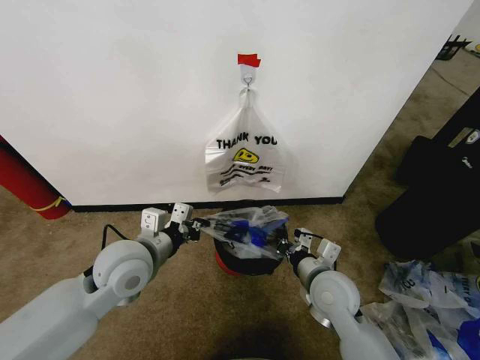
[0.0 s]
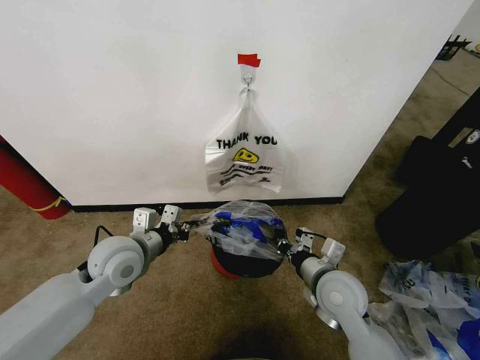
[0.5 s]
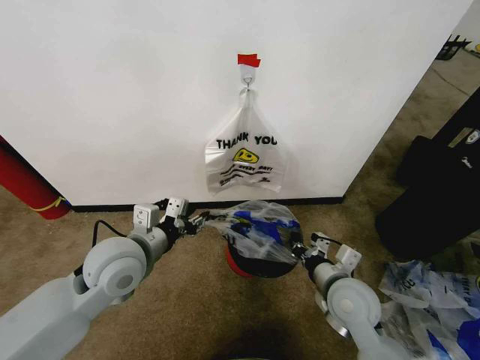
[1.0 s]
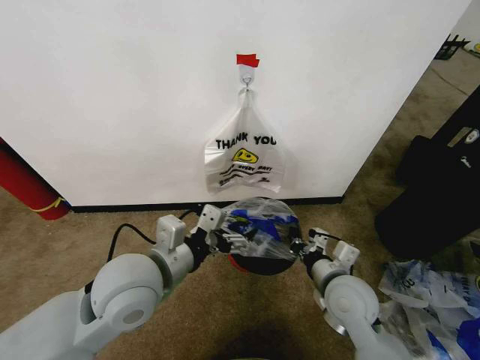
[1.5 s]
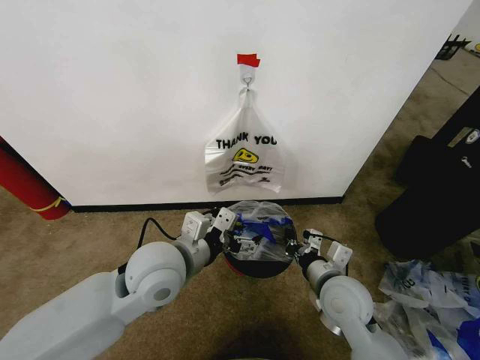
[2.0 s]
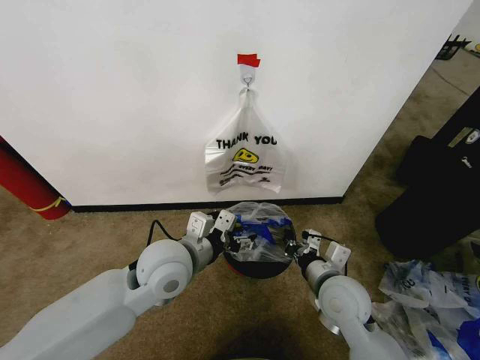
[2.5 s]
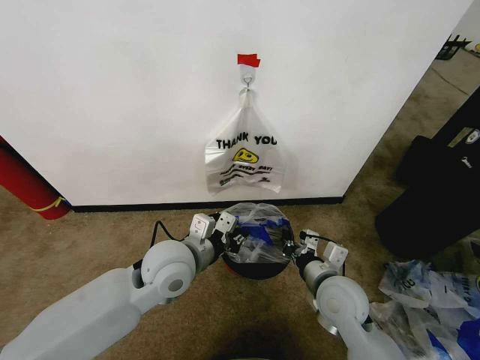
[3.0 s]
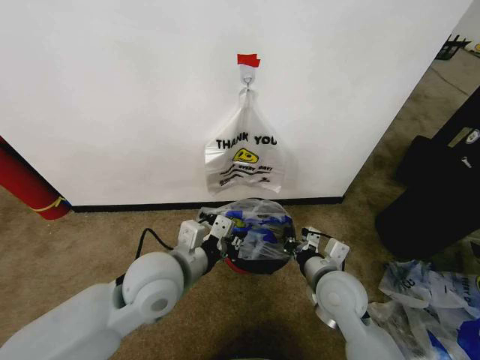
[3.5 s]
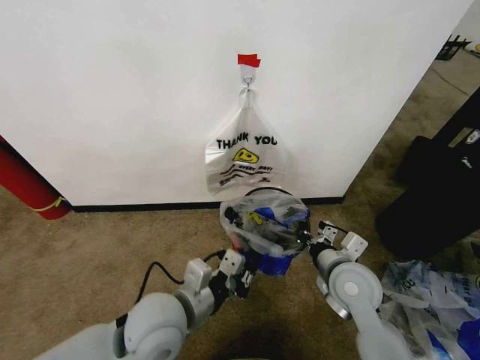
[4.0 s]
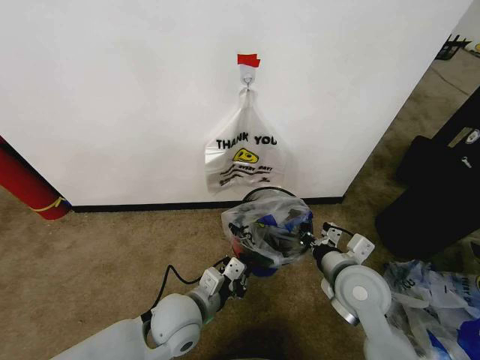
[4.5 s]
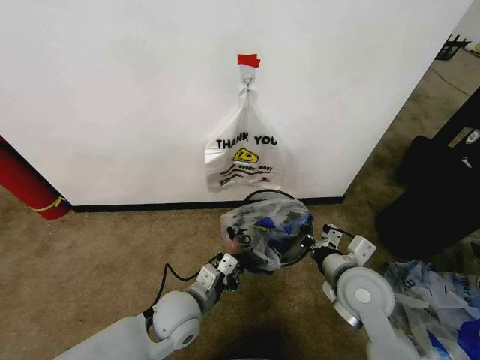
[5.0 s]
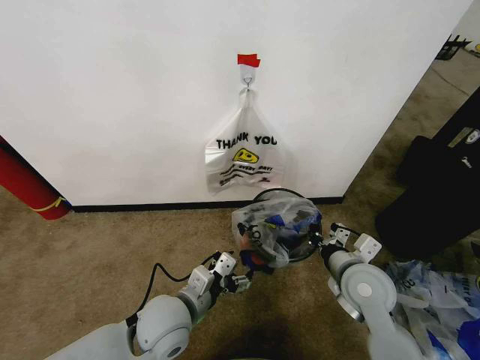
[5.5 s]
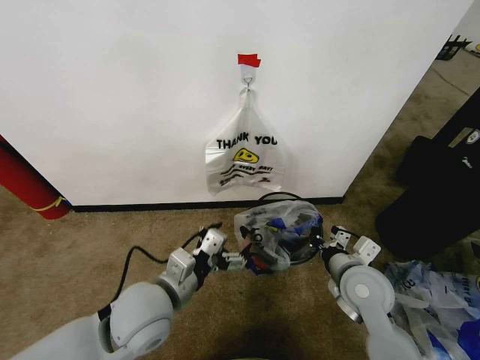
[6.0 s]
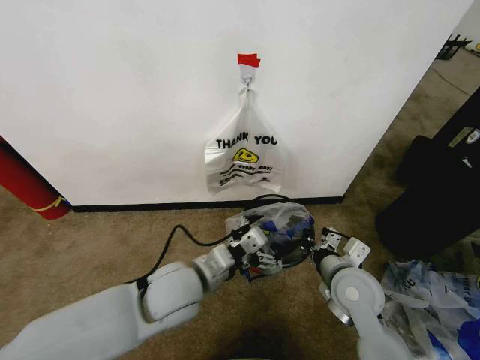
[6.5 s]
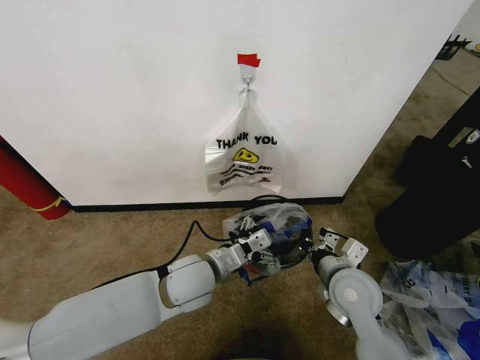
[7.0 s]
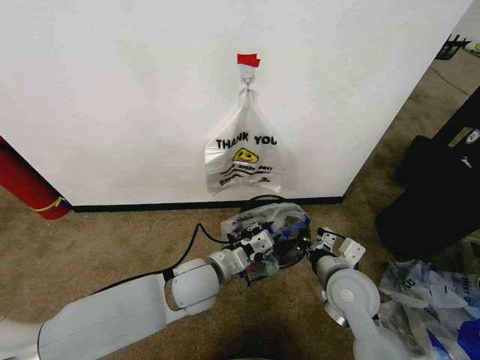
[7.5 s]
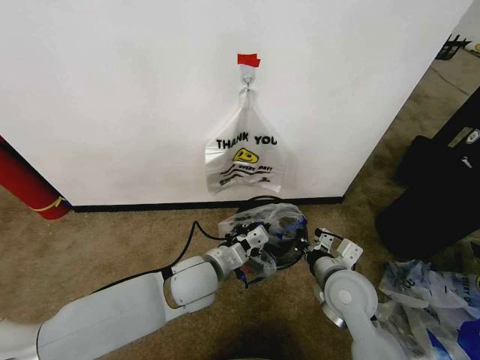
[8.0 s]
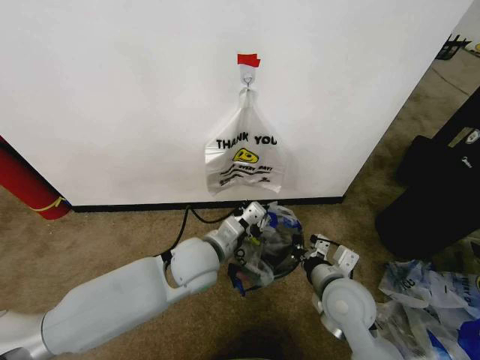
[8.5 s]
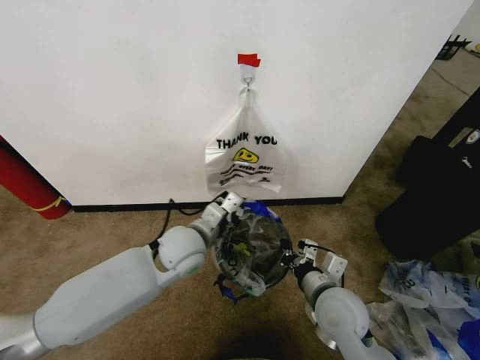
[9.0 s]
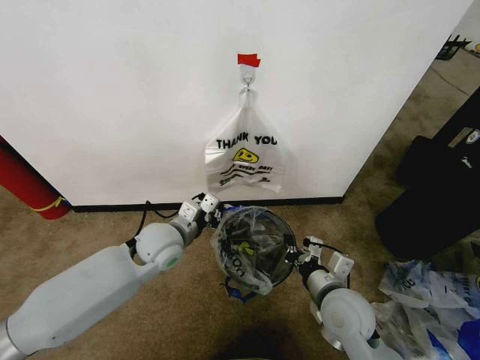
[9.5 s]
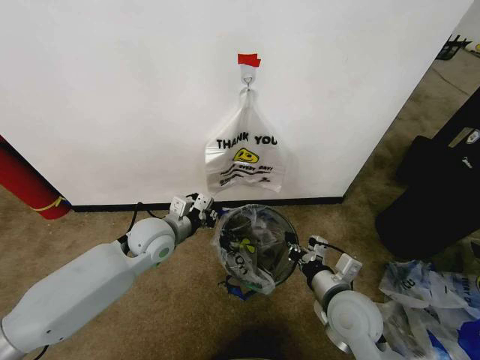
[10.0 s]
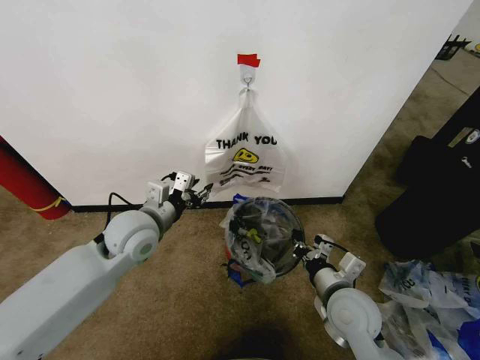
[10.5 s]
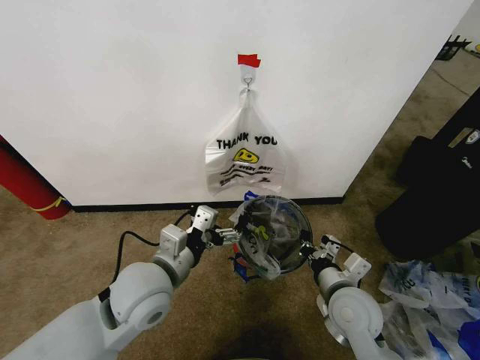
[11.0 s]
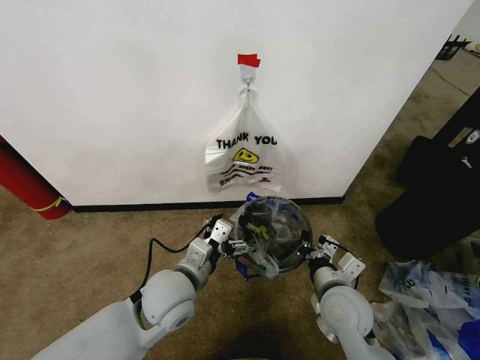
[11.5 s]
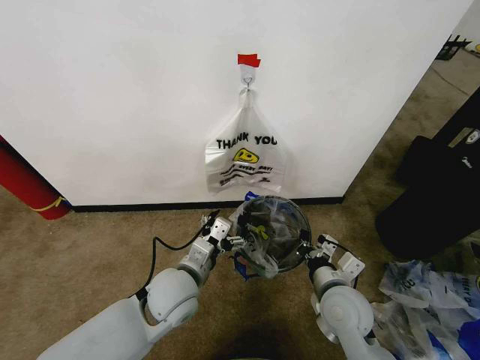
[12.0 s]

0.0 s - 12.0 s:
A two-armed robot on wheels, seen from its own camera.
Task of the whole recording: Pick up the garbage bag from the wall and place it over the trash bin.
0.0 s - 2.0 s: The left gripper shifts approximately 5 cm to the right, and opens its fingers.
2.0 s - 4.0 s: The left gripper moves backward and downward, some 10 cm, and closes up.
4.0 s - 6.0 s: The left gripper reaches roughly 10 cm downward, then returns, and opens.
6.0 s - 8.0 s: The left gripper shifts about 10 cm forward and to the right, and closes up.
8.0 s - 10.0 s: The left gripper moves to the left and forward, approximately 15 cm.
10.0 s - 12.0 s: The left gripper shifts roughly 15 cm backward and to the right, and opens its fingers.

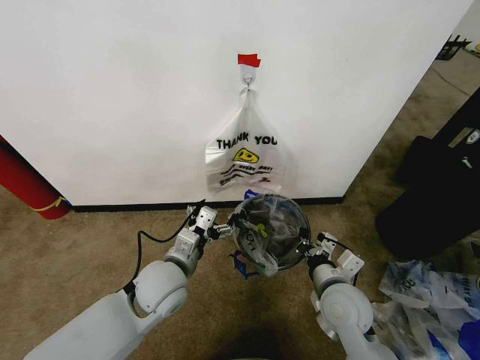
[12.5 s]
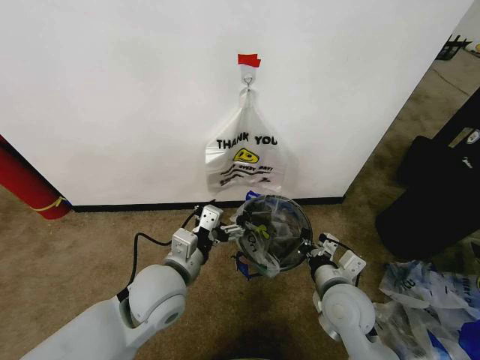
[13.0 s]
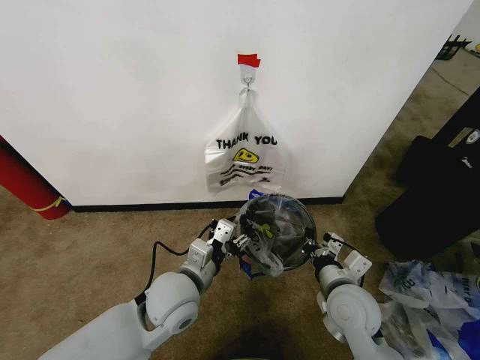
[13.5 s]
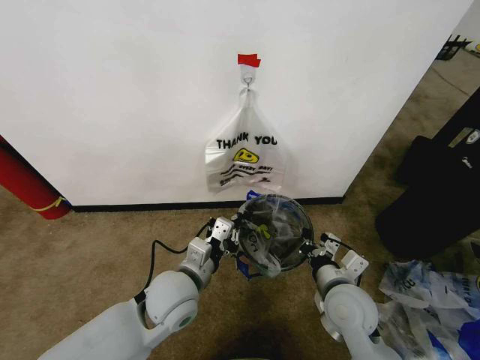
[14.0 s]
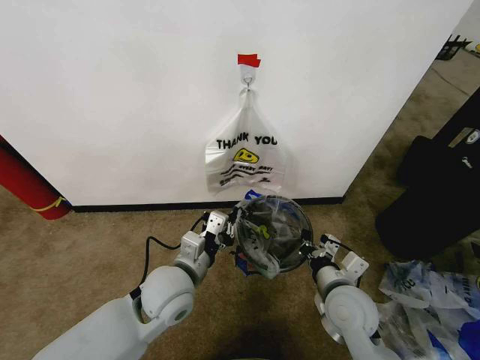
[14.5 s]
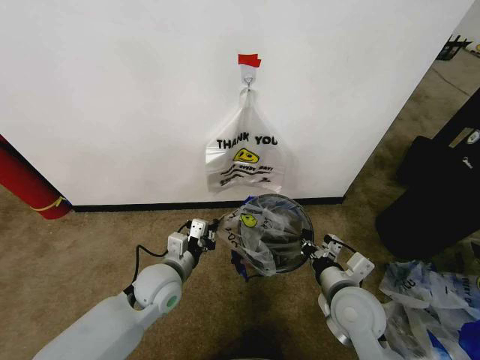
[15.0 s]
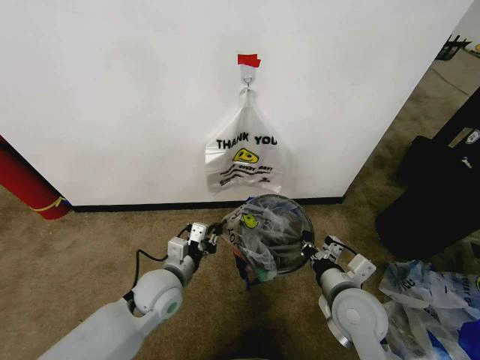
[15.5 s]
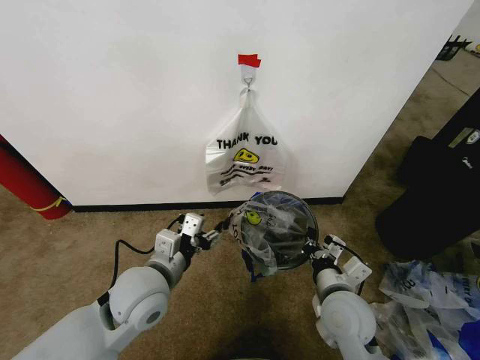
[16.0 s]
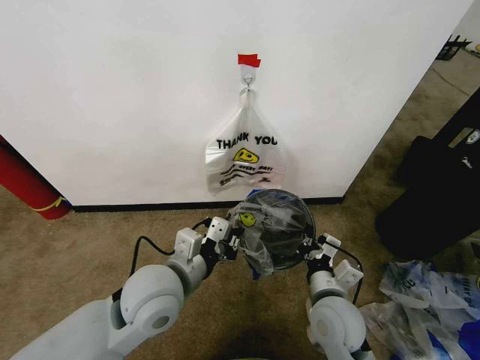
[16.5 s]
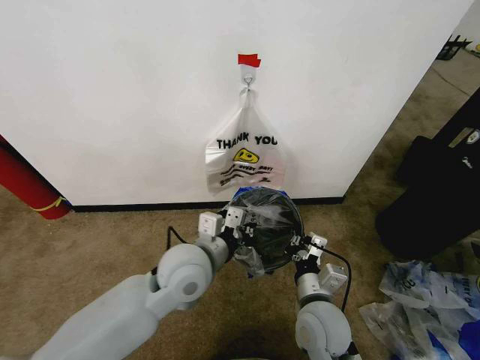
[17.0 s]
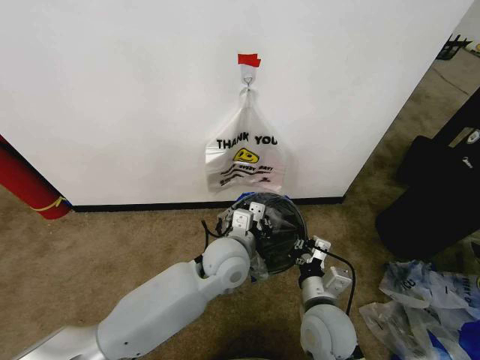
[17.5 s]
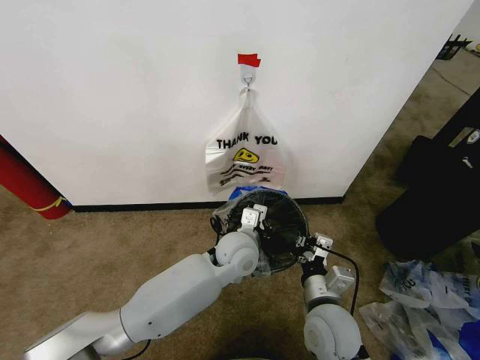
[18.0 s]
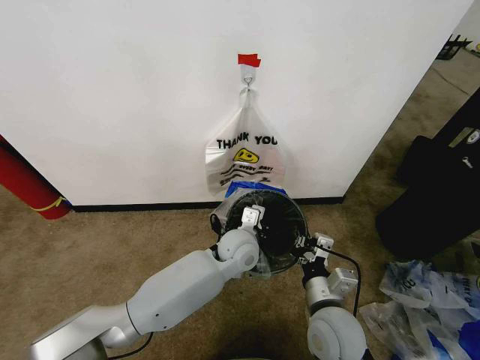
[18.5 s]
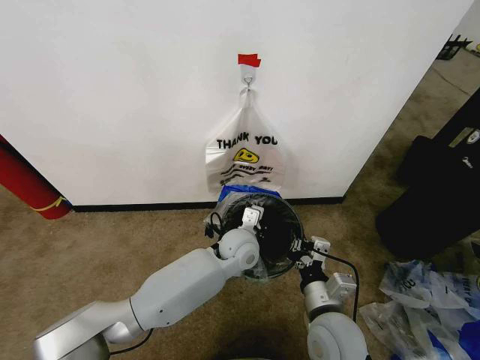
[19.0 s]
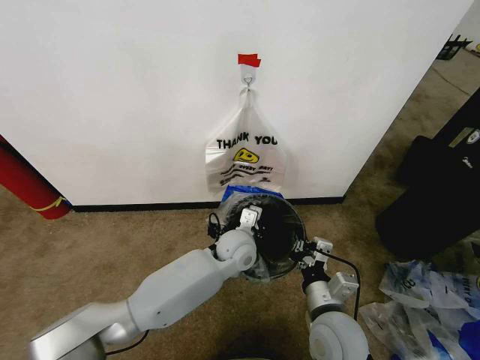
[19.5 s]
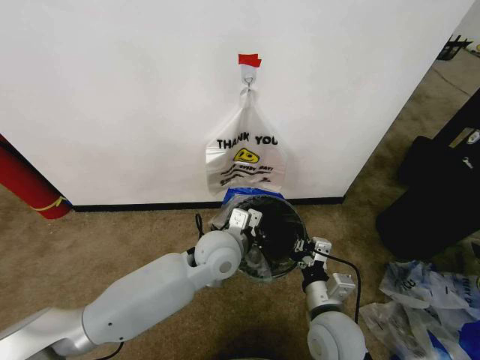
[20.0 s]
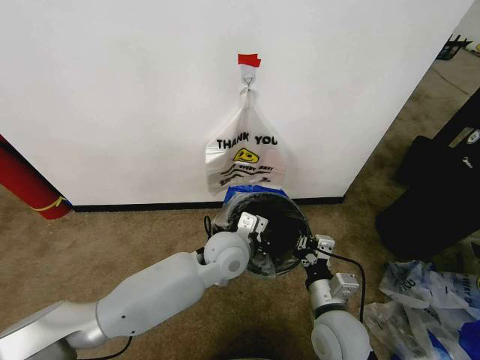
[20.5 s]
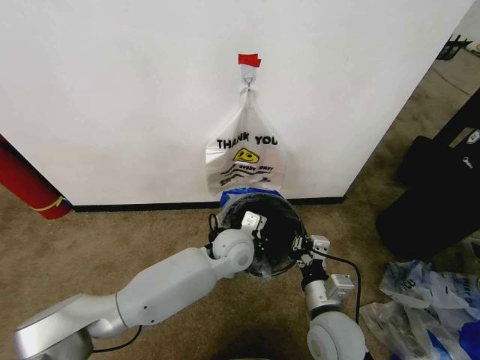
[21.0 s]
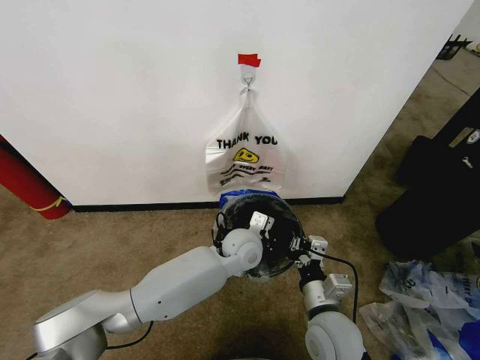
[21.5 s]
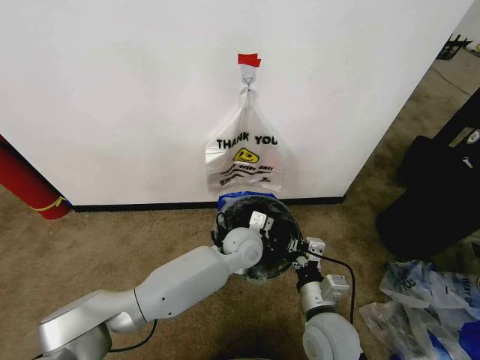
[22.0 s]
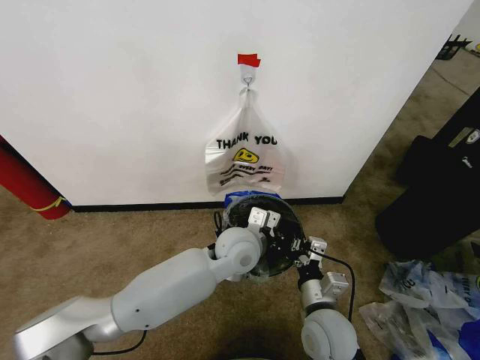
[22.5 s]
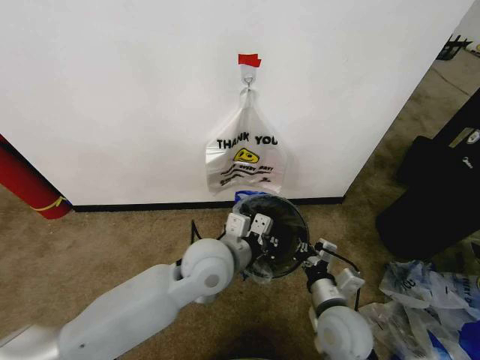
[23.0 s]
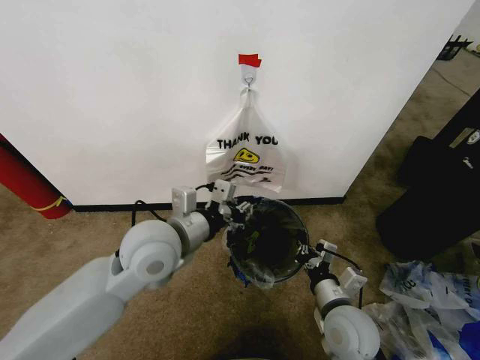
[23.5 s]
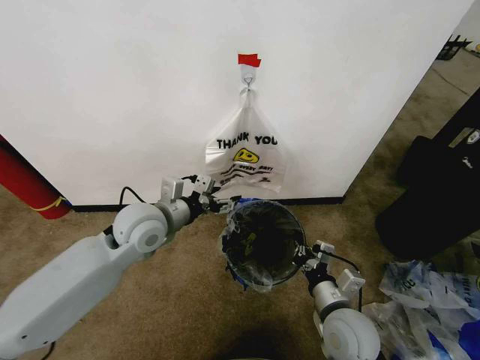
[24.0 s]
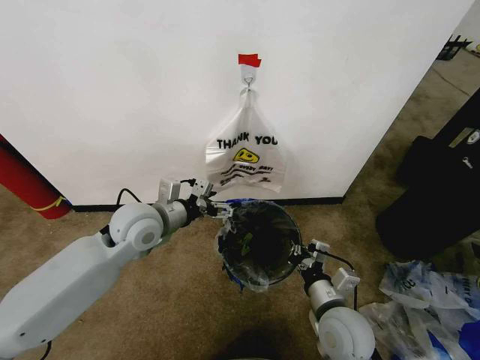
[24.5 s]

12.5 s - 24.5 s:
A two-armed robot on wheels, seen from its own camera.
Task of the whole recording: Pick up the garbage bag from the wall and place it over the trash bin.
12.5 s - 14.5 s: The left gripper closes its fingers.
14.5 s - 16.5 s: The left gripper is displaced upward by approximately 5 cm, and opens, then closes once more.
16.5 s - 18.5 s: The left gripper moves forward, to the right and downward, some 20 cm.
18.5 s - 20.5 s: The left gripper ends up about 5 cm from where it was.
22.5 s - 24.5 s: The left gripper heads to the left, covering about 20 cm, and opens.

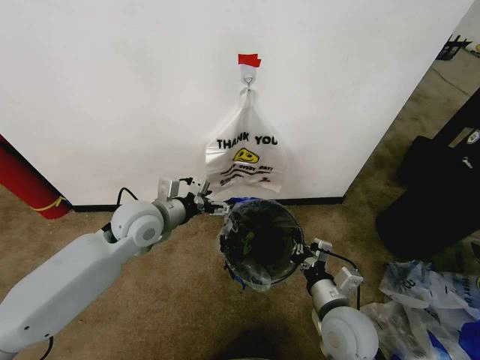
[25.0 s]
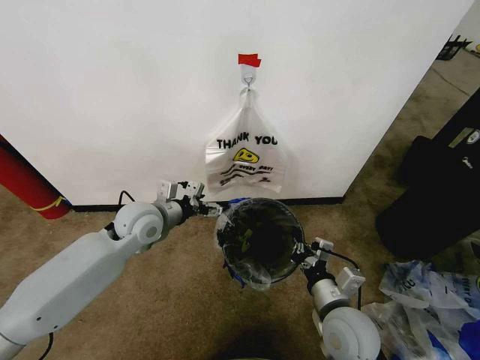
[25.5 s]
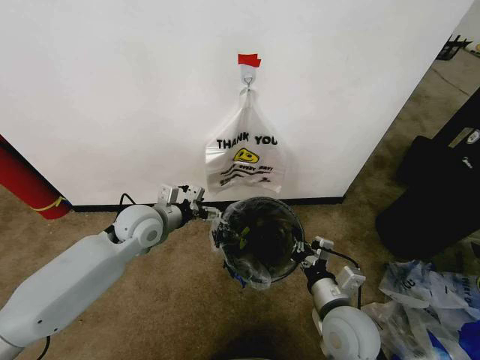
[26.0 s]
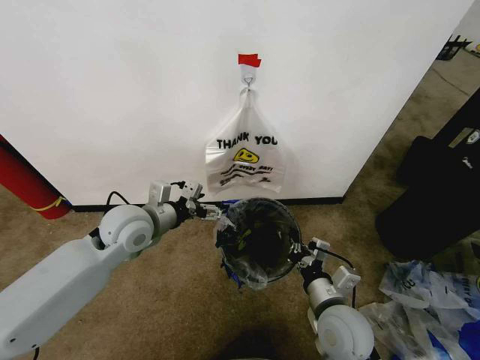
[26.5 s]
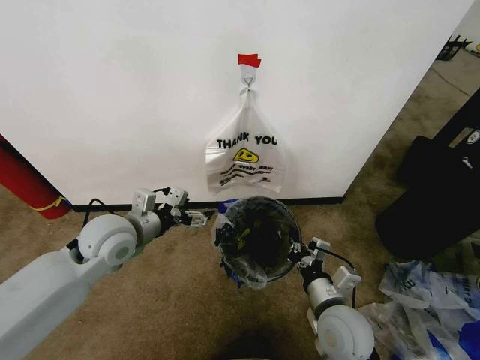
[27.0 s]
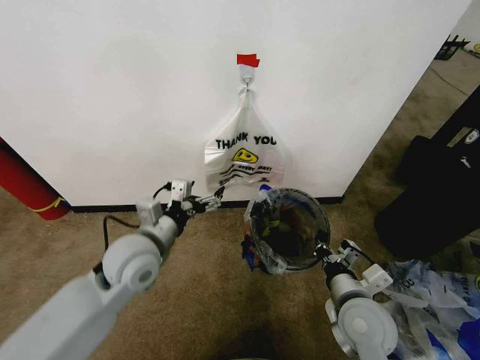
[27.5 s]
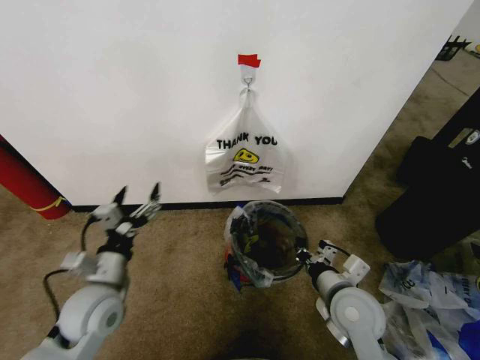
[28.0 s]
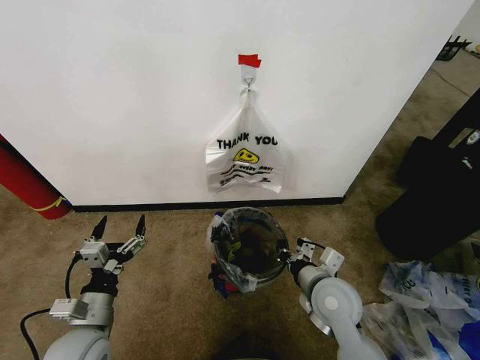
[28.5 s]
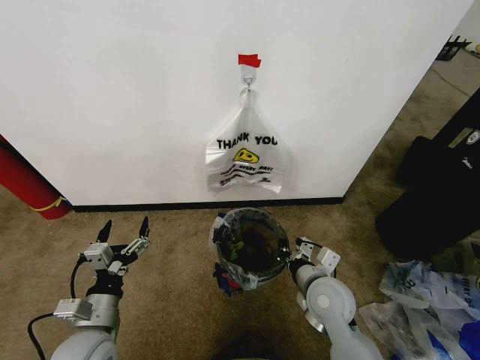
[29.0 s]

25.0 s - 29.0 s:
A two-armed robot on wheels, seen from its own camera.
Task of the whole recording: Pick up the garbage bag from the wall and place it over the trash bin.
25.0 s - 27.0 s: The left gripper shifts by some 5 cm.
27.0 s - 29.0 s: The left gripper travels backward and downward by some 20 cm. The right gripper moves forward, some 5 cm.
